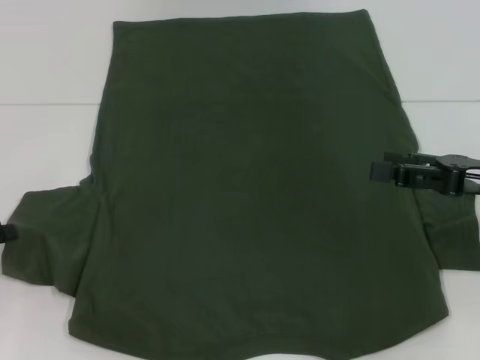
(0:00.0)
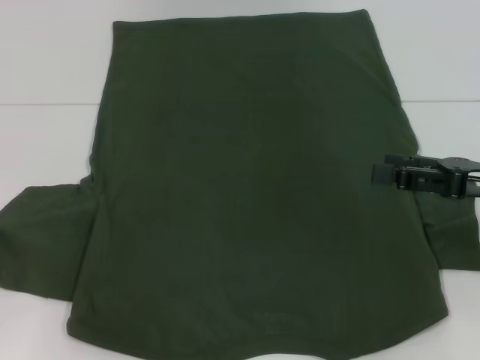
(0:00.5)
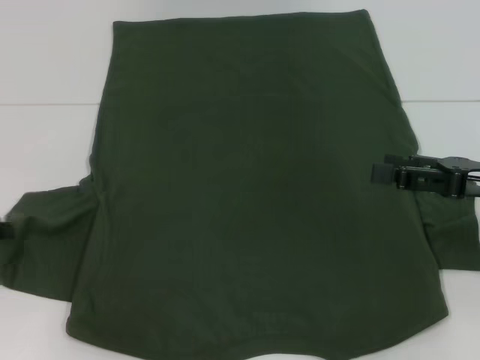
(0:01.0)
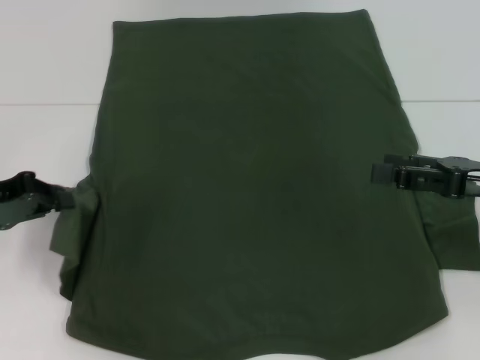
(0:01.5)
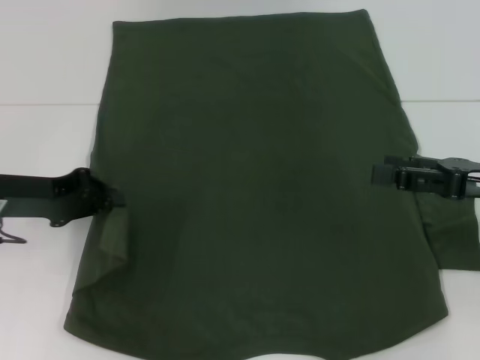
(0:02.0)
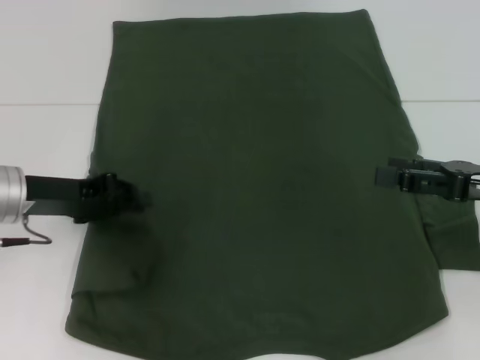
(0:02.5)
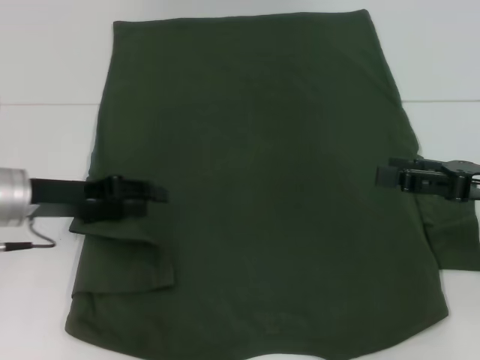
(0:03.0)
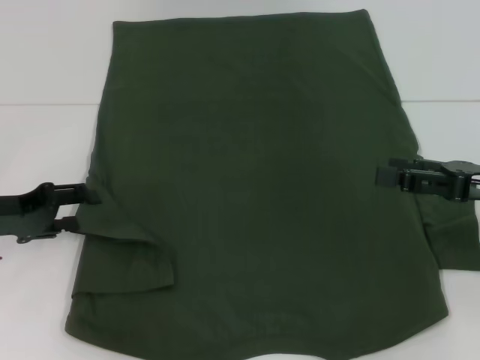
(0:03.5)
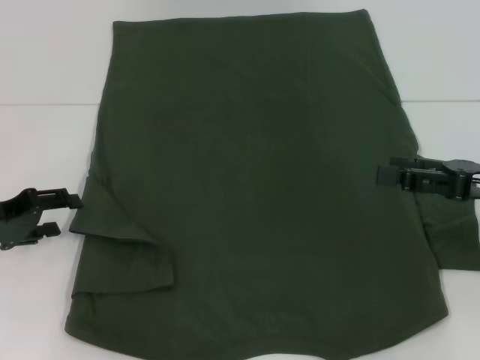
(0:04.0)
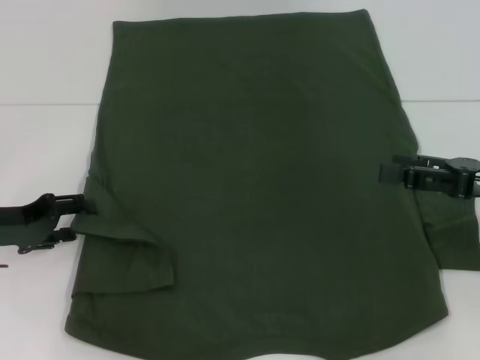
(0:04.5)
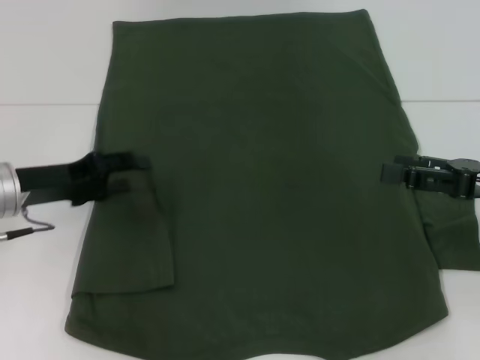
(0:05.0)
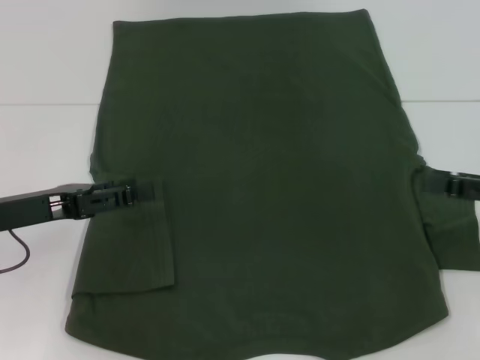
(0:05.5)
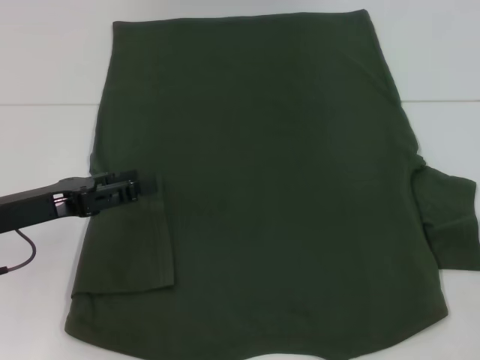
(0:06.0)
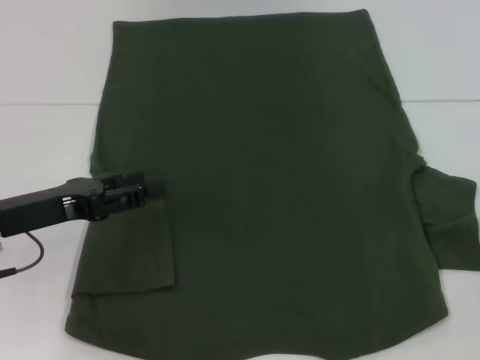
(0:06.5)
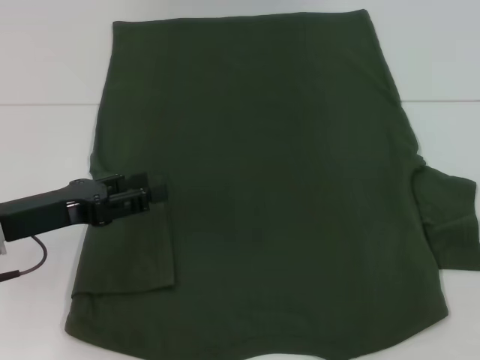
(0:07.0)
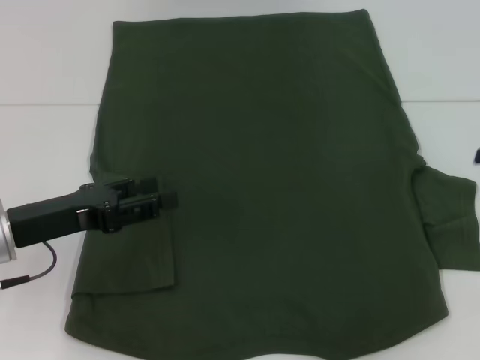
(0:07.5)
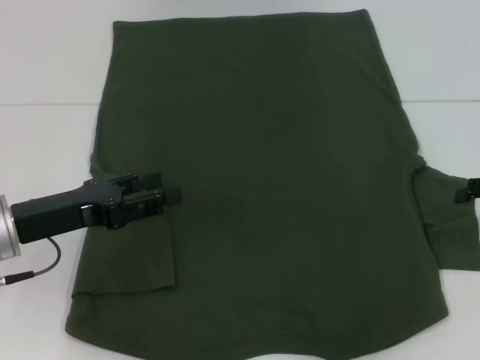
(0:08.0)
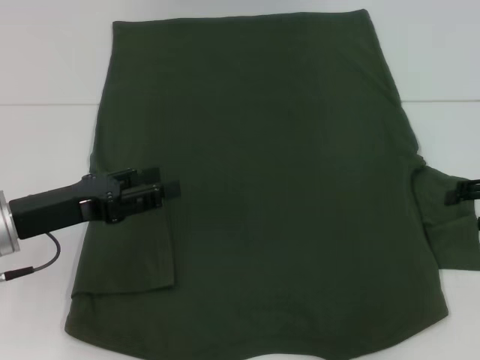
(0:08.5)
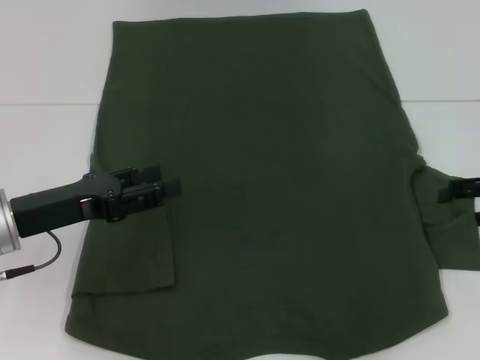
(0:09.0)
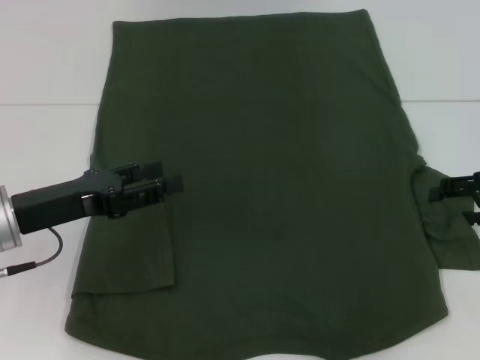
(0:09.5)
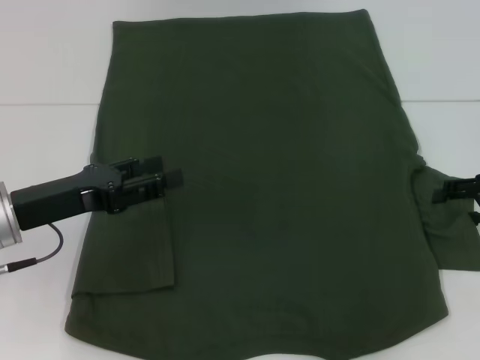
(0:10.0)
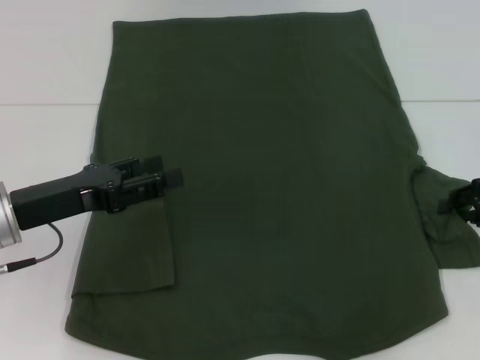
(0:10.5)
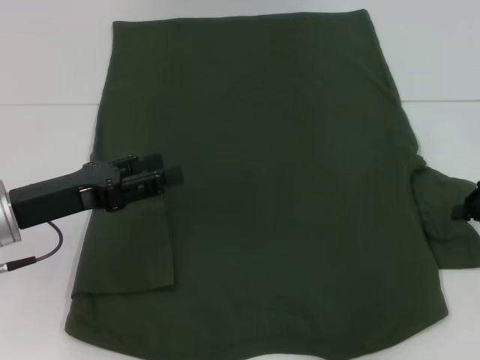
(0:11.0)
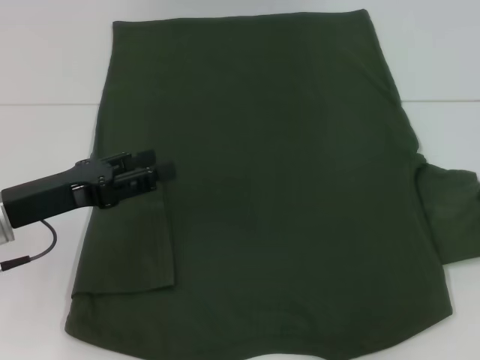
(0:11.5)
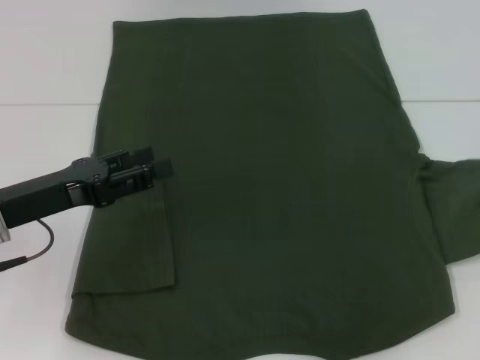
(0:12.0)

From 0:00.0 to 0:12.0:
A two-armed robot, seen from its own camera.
Step, from 0:00.0 to 0:05.5: Fold the bottom left sleeve with your left hand.
From 0:00.0 to 0:02.0: The left gripper moves to the right and forward, approximately 10 cm.
From 0:02.0 to 0:04.0: The left gripper moves about 5 cm, and opens.
From 0:04.0 to 0:06.0: The left gripper travels to the right by roughly 5 cm, while the right gripper goes approximately 10 cm to the right.
From 0:08.0 to 0:10.0: The grippers move only a little.
From 0:10.0 to 0:12.0: The right gripper ends up roughly 5 cm from where it was, and closes.

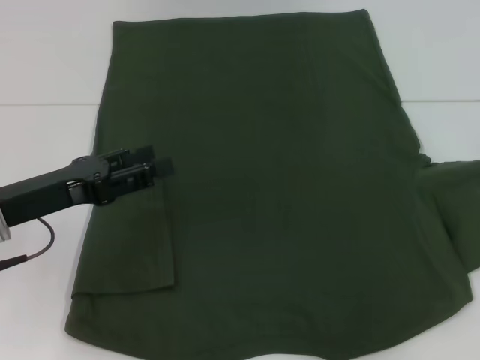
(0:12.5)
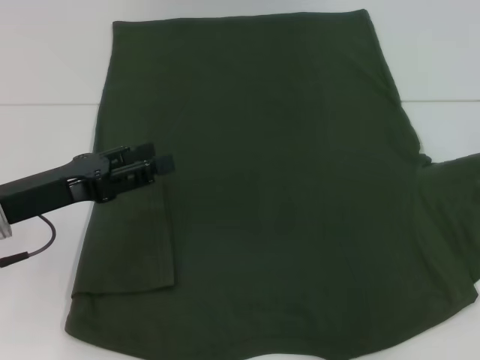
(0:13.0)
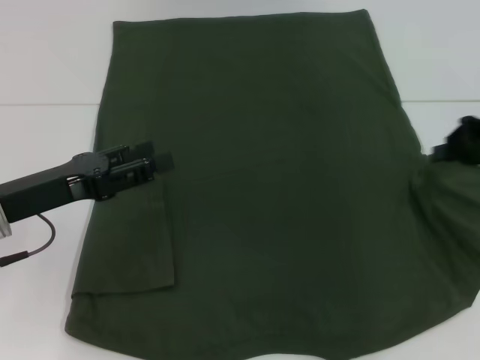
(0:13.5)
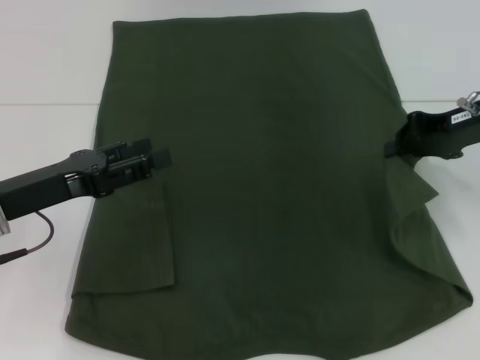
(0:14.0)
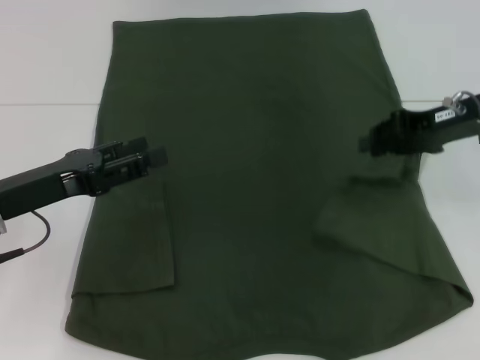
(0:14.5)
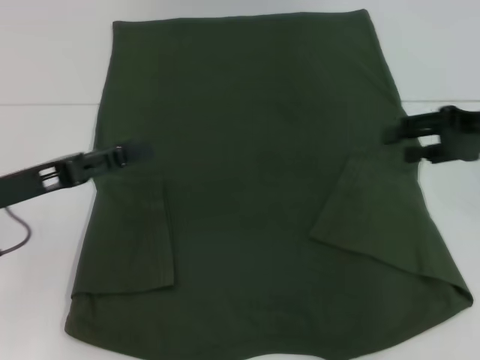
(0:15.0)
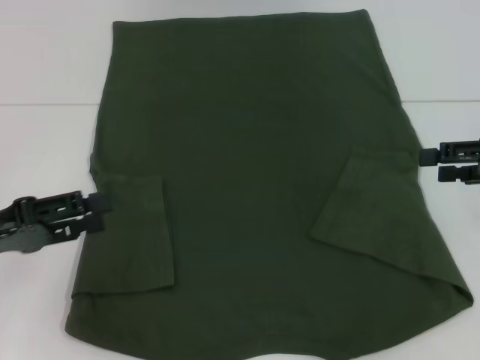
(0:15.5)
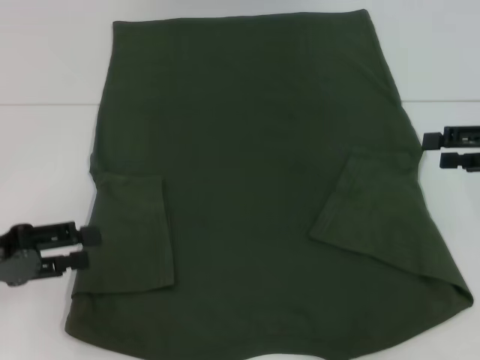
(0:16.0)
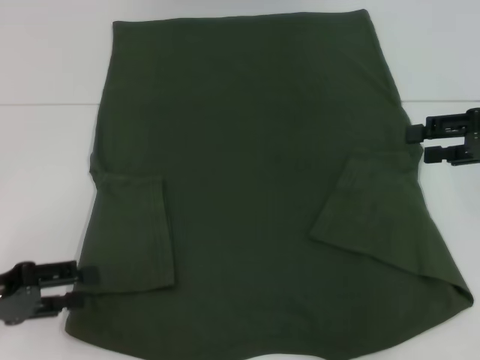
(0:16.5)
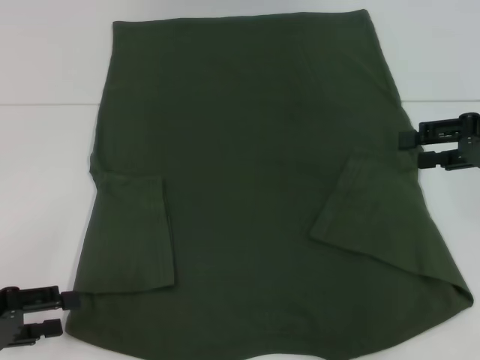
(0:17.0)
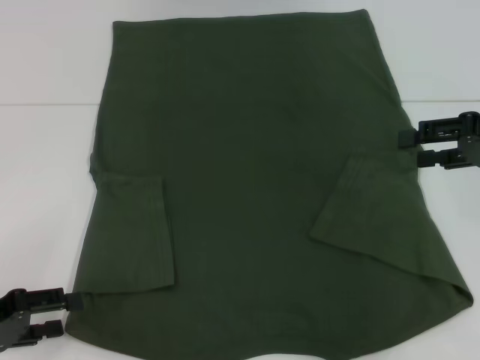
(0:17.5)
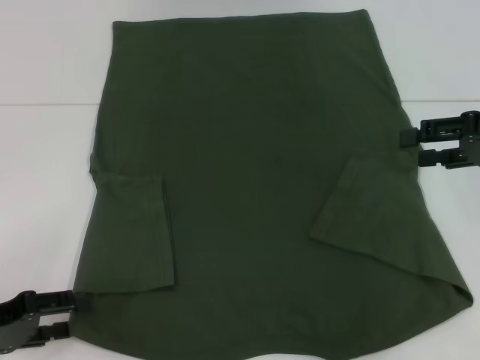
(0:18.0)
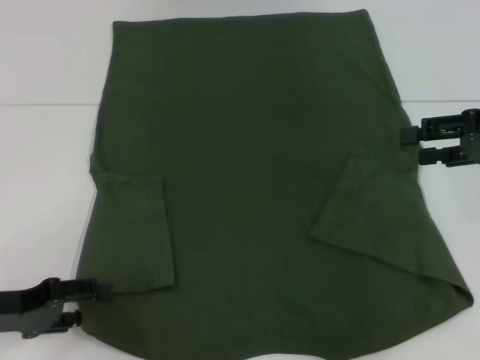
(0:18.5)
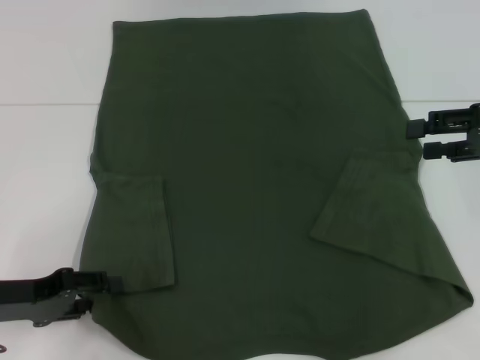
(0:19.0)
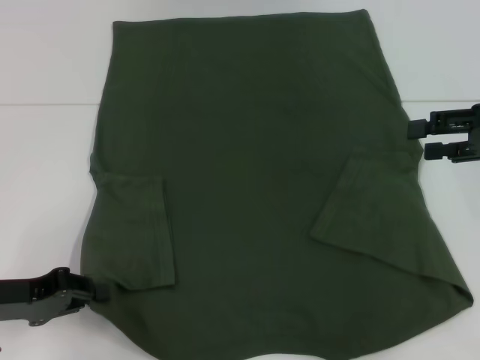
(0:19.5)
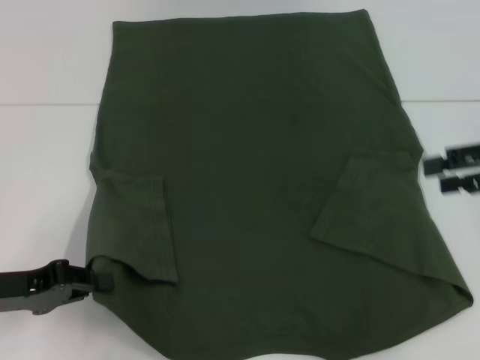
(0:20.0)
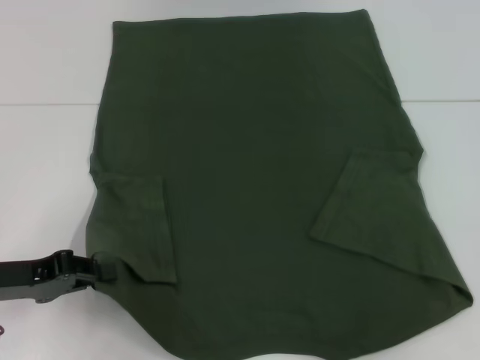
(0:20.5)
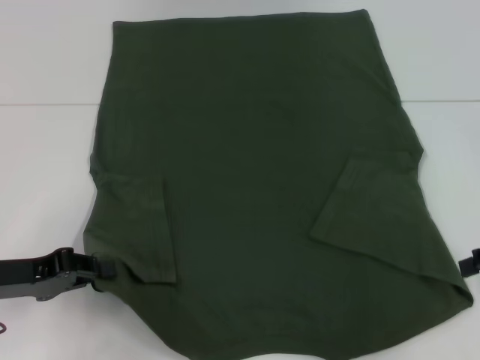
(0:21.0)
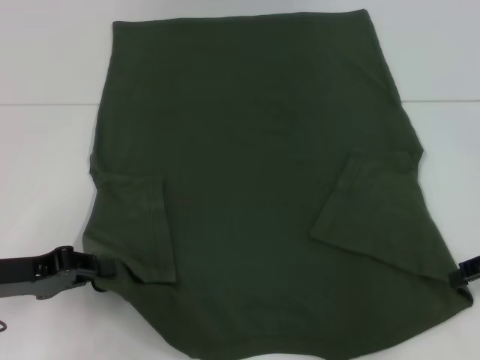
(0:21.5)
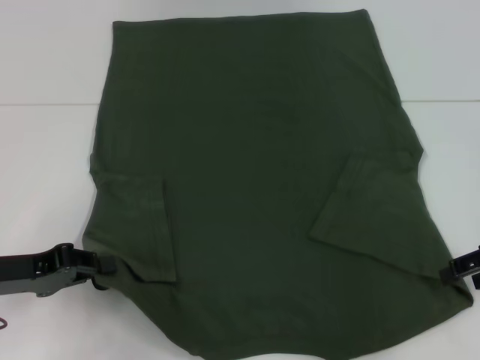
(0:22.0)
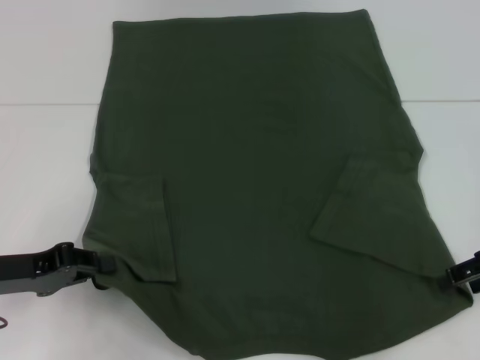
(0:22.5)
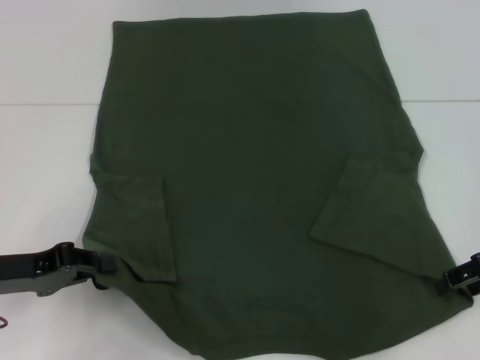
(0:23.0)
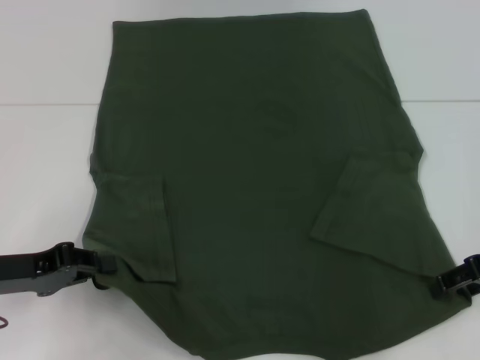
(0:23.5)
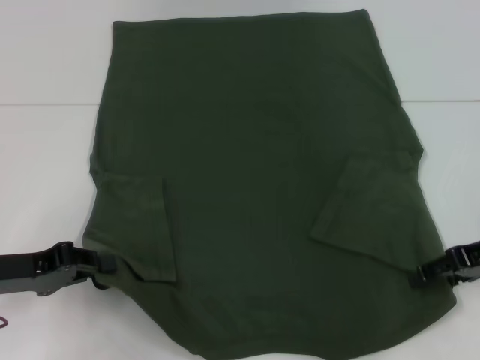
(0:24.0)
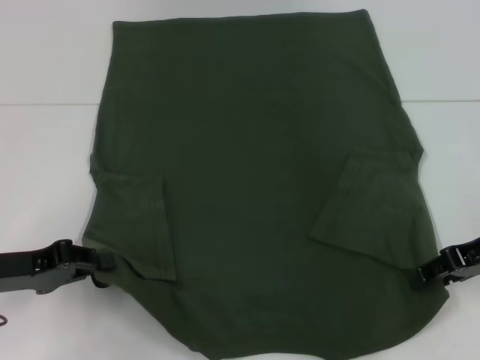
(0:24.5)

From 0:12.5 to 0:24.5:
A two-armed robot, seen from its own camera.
Step, from 0:12.5 to 0:14.5: Fold the bottom right sleeve with your right hand.
Step, from 0:15.0 to 0:20.0: Grab the bottom left corner with your left hand.
From 0:12.5 to 0:14.5: The right gripper shifts some 15 cm to the left.
From 0:14.5 to 0:16.5: The right gripper is displaced to the right by some 5 cm, and opens. The left gripper moves to the left and backward, some 10 cm.
From 0:16.5 to 0:18.5: The grippers stay close to where they were, moving slightly.
From 0:18.5 to 0:20.5: The right gripper is displaced to the right by roughly 5 cm. Meanwhile the left gripper closes.
From 0:20.5 to 0:22.5: The right gripper heads downward and to the left, covering roughly 10 cm.
From 0:22.5 to 0:24.5: The grippers stay close to where they were, moving slightly.

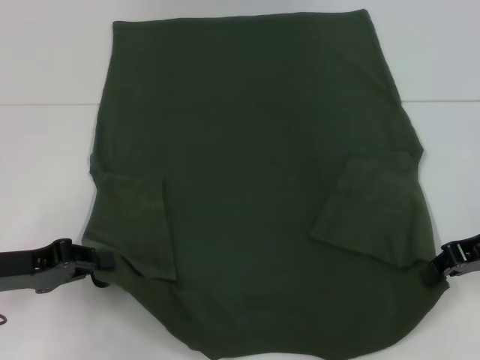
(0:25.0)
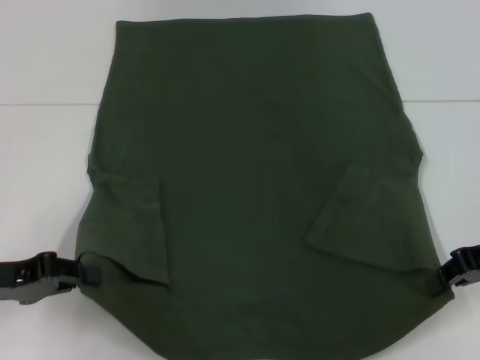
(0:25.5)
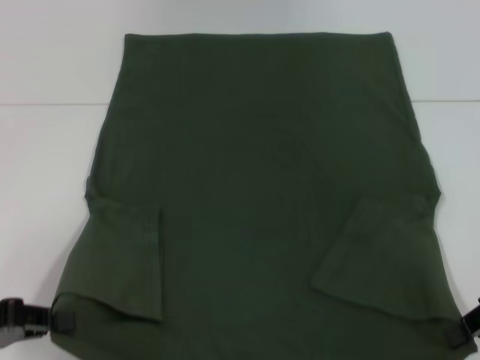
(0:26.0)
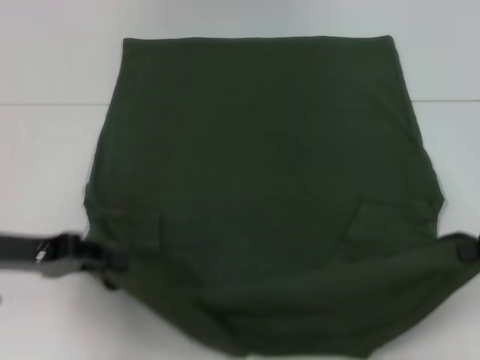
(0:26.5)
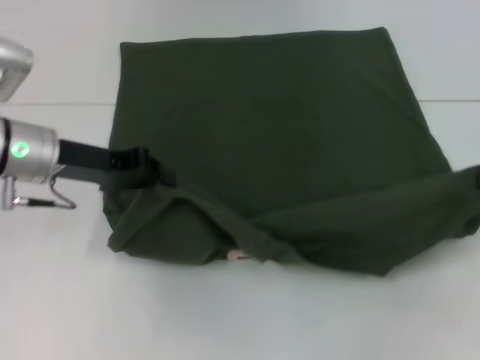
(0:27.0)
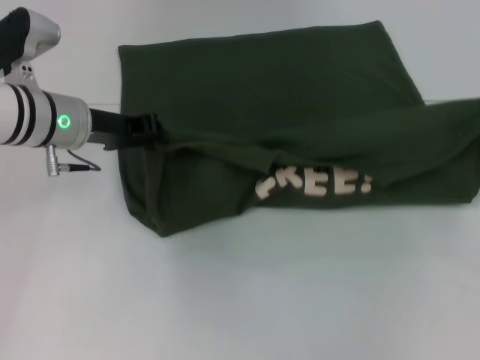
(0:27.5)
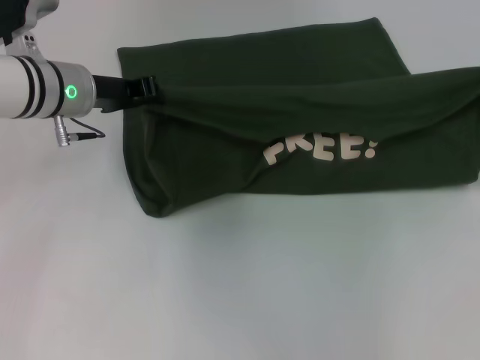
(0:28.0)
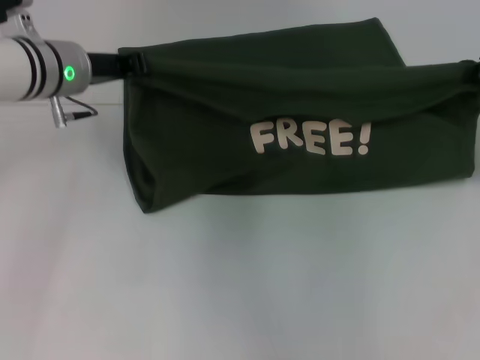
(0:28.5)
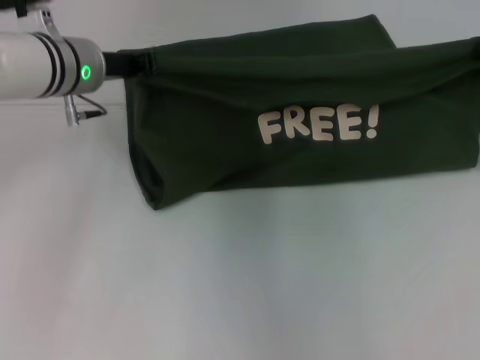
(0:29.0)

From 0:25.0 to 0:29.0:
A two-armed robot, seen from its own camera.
From 0:25.0 to 0:27.0: The left gripper heads forward, to the right and upward, covering roughly 15 cm. The right gripper is displaced to the right by roughly 10 cm.
From 0:27.0 to 0:29.0: The left gripper goes about 10 cm forward and to the right; the right gripper moves forward, about 10 cm.
